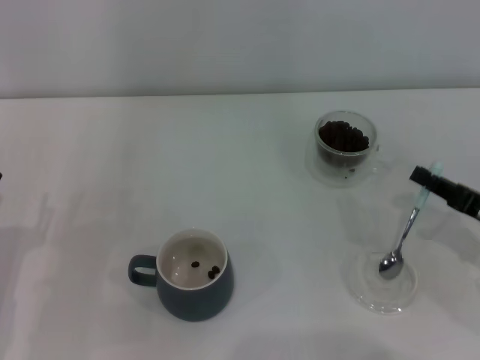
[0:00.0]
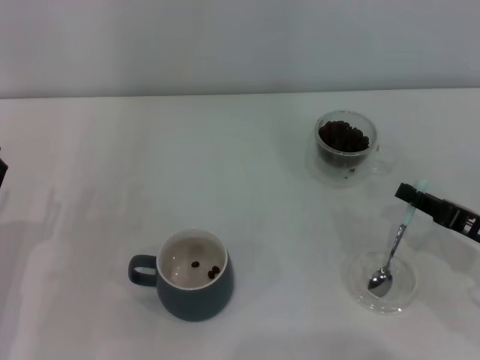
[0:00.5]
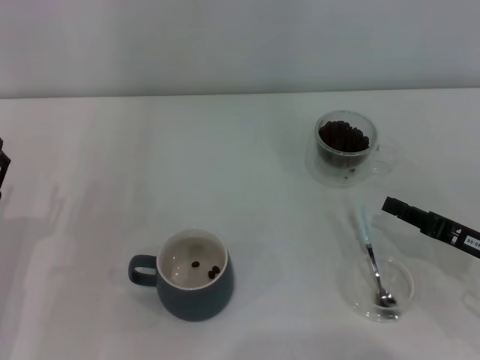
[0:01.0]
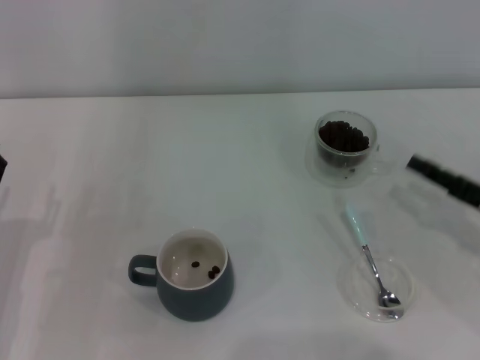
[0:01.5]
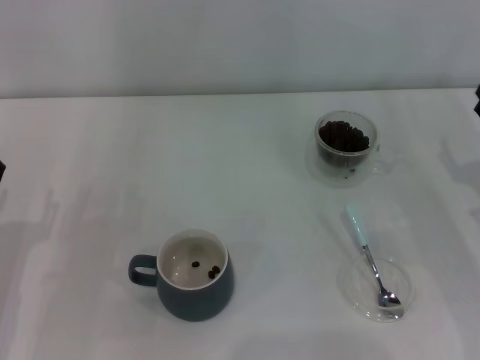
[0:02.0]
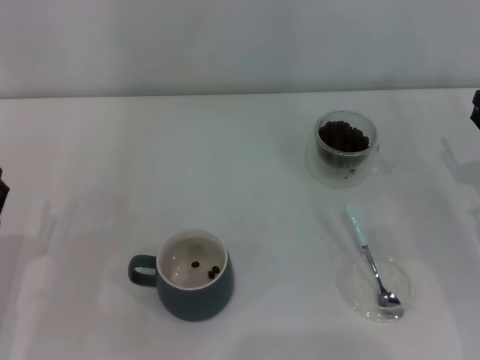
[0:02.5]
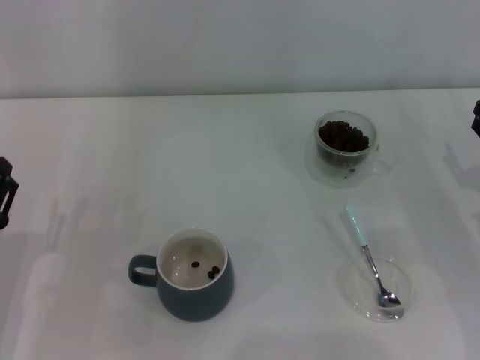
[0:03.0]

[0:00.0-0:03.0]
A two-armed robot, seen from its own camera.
Task of the whole recording: Use a blue spoon to take out the coffee beans from the glass and pour them into the gray cup.
0:00.0 to 0:01.5: The grippers make only small movements.
0:01.5 to 0:03.0: The right gripper opens its fingers.
